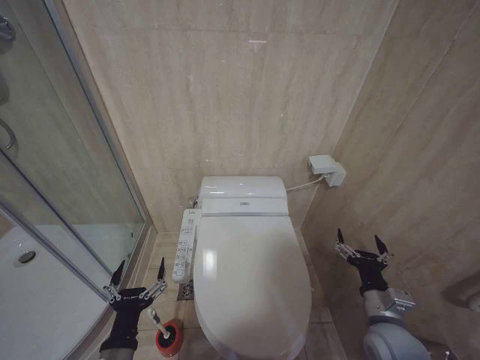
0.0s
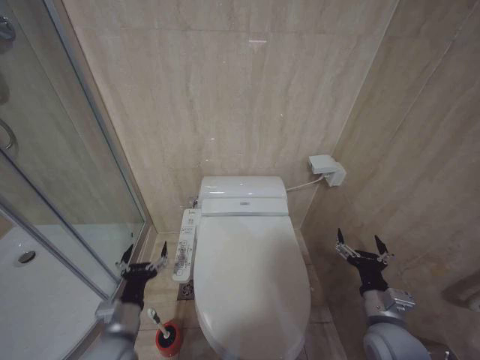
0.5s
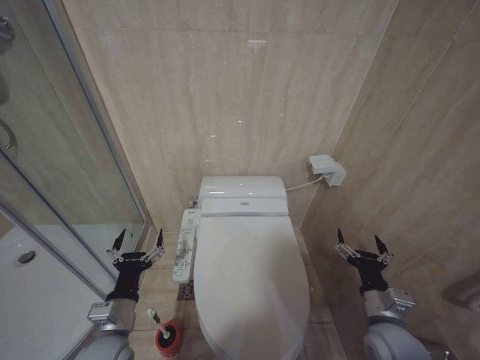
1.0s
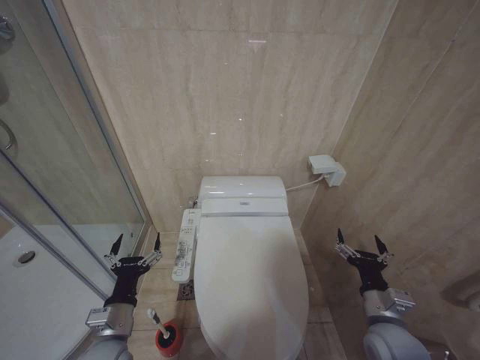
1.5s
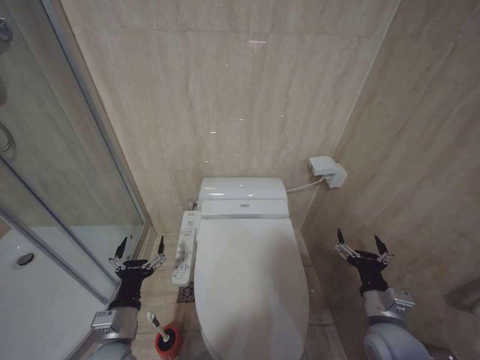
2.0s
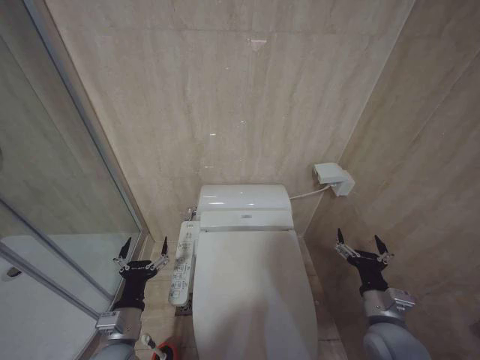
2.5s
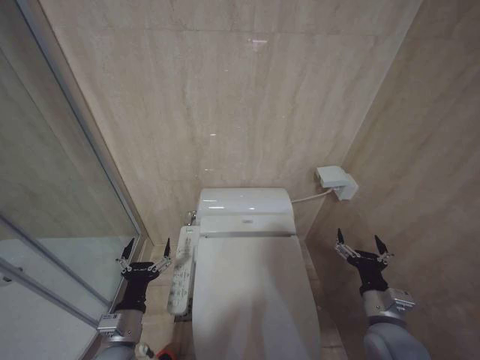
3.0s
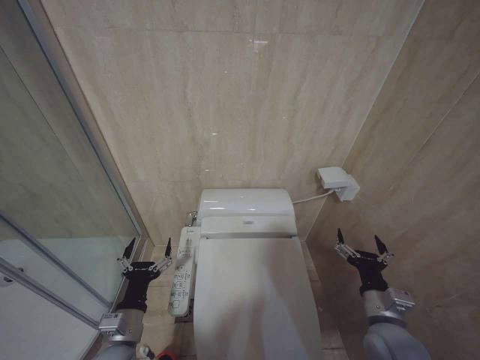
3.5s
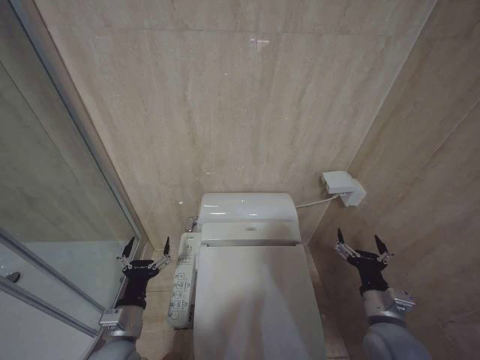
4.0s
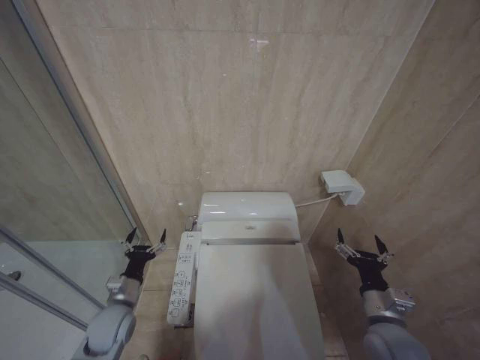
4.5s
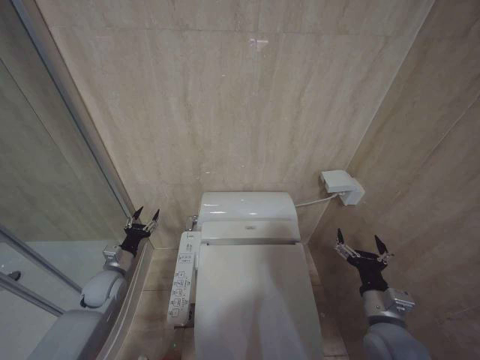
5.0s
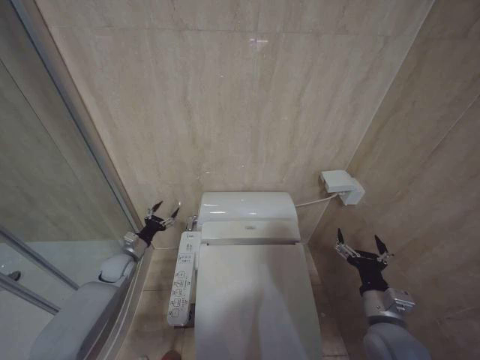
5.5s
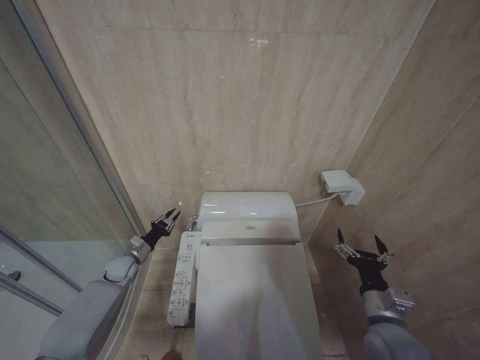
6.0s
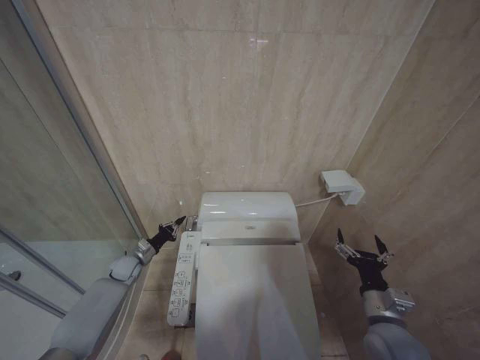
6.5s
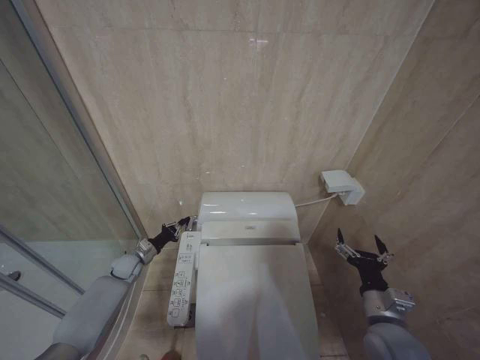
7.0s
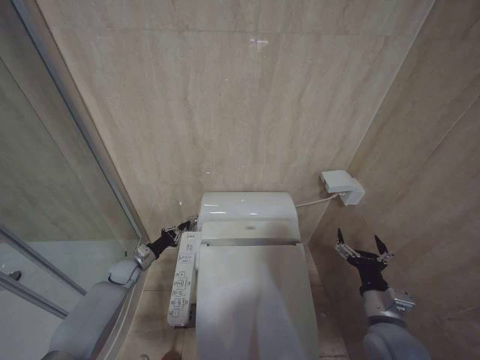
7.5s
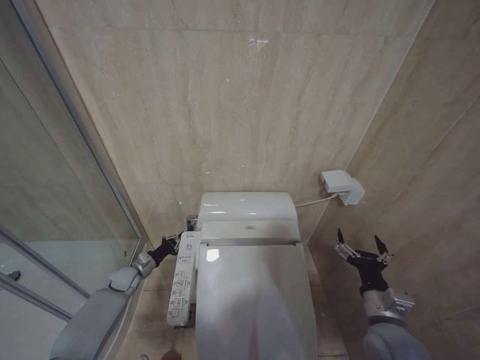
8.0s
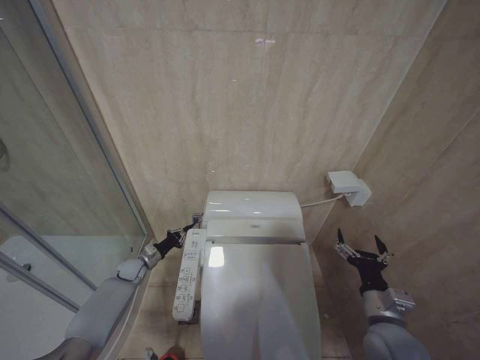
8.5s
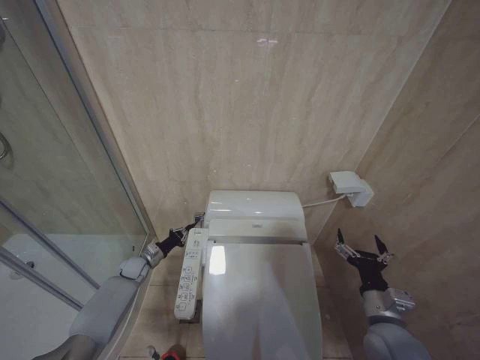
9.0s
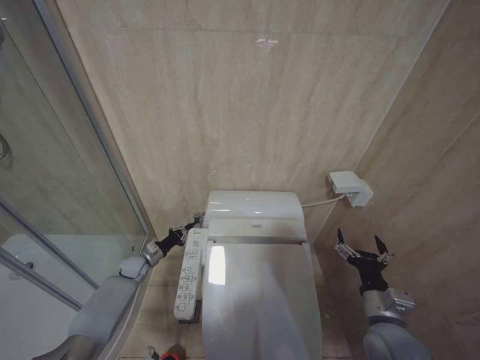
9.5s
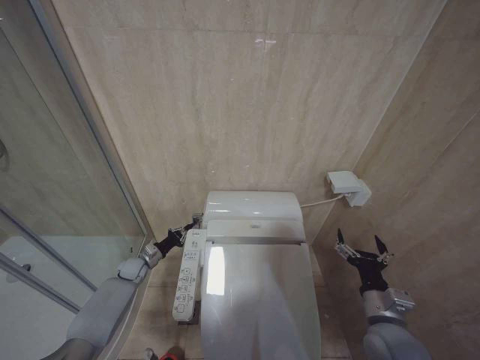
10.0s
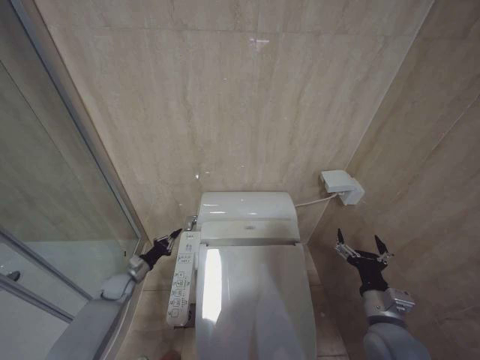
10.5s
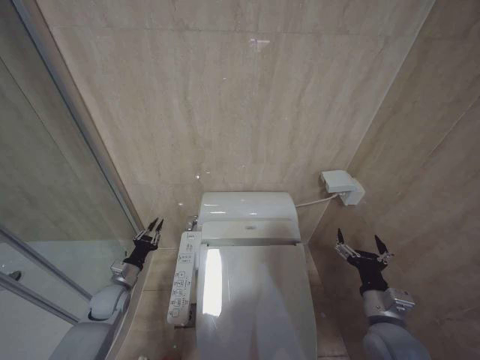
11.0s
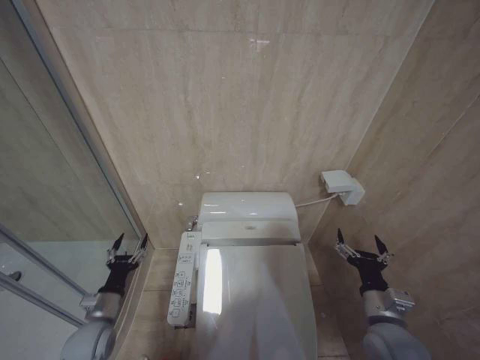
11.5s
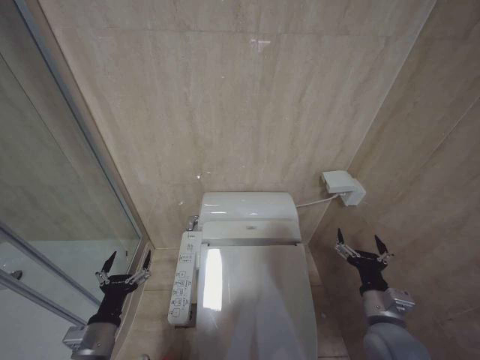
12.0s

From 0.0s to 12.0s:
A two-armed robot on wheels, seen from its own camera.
Task of the whole recording: Open the toilet lid, clean the toilet bowl with a toilet brush, close the toilet lid, and flush.
From 0.0s to 2.0s: The left gripper travels forward by some 5 cm.
From 2.0s to 4.0s: Neither gripper changes place.
From 4.0s to 6.0s: The left gripper moves forward and to the left, approximately 30 cm, and closes its fingers.
From 6.0s to 8.0s: The left gripper is displaced downward by some 5 cm, and closes its fingers.
From 8.0s to 10.0s: The grippers make only small movements.
From 10.0s to 12.0s: The left gripper shifts some 30 cm backward, and opens up.

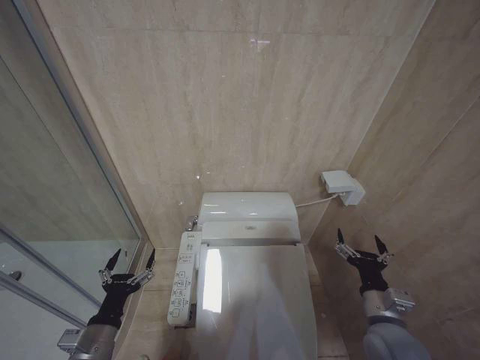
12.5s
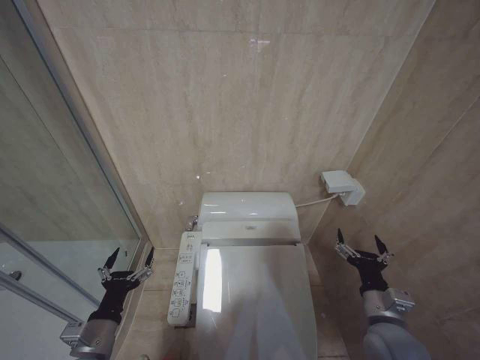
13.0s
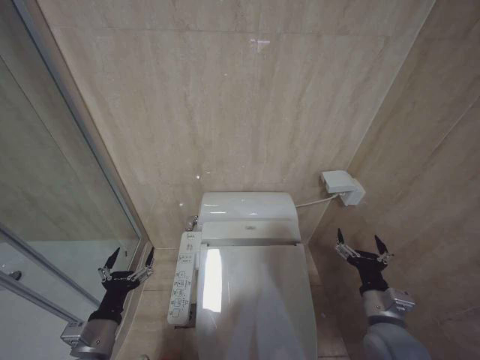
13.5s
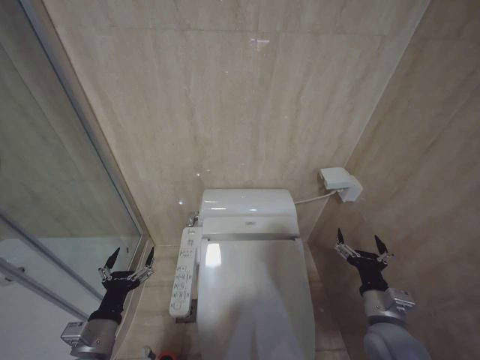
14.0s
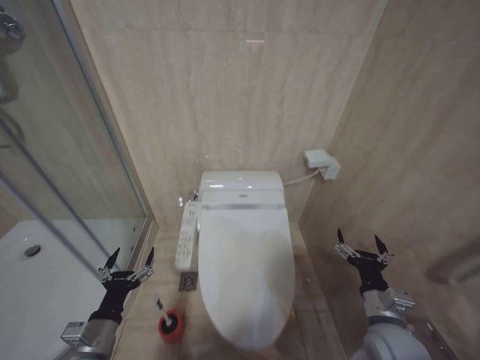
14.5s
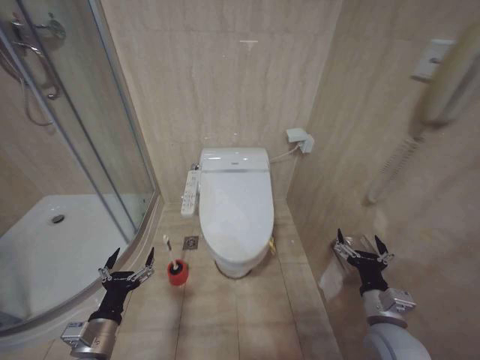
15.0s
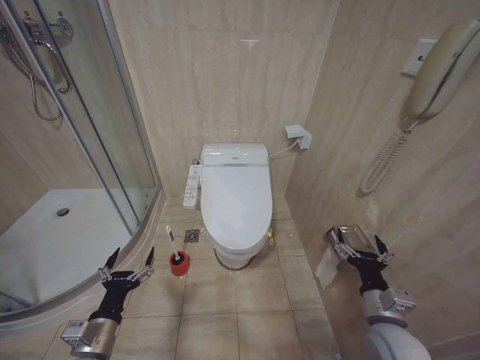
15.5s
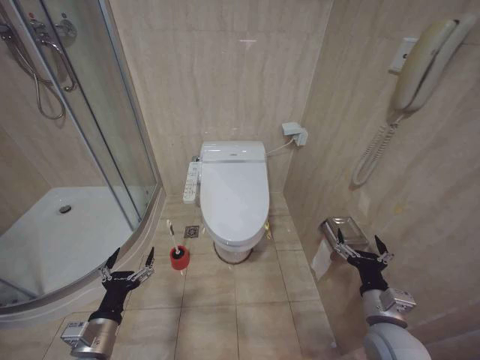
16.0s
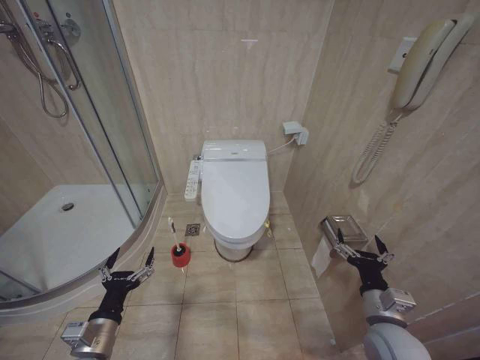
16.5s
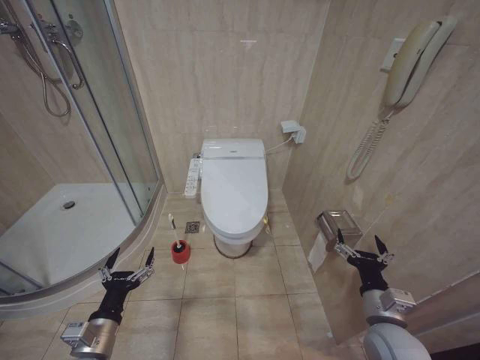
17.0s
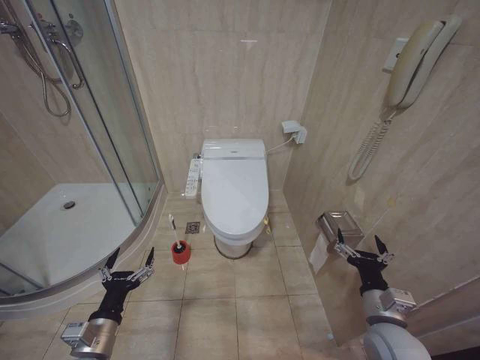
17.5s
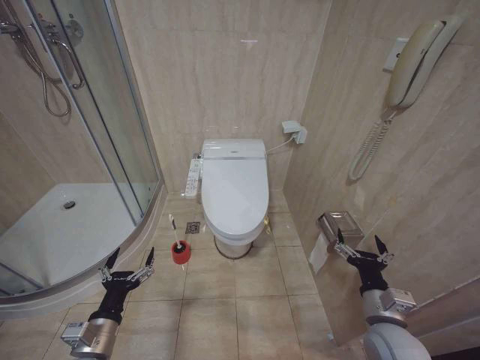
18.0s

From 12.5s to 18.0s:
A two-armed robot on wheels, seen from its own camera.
Task of the whole recording: Open the toilet lid, clean the toilet bowl with a toilet brush, close the toilet lid, and flush.
From 12.5s to 14.5s: The two grippers keep their place.
From 16.0s to 18.0s: Both grippers stay about where they are.
